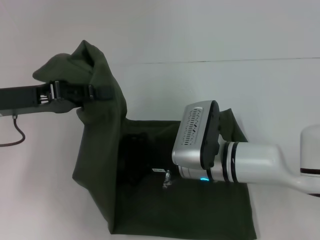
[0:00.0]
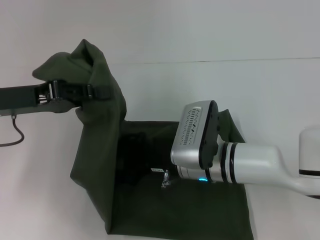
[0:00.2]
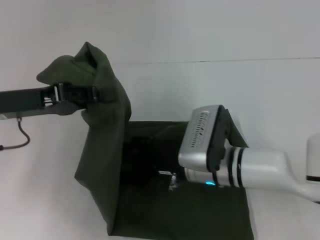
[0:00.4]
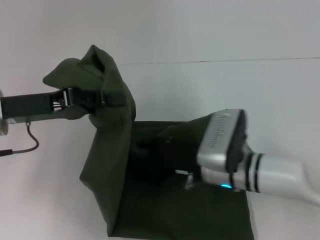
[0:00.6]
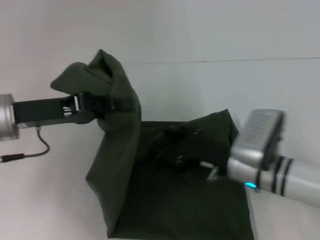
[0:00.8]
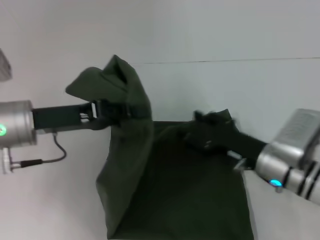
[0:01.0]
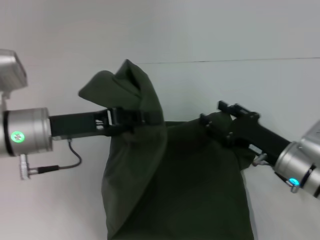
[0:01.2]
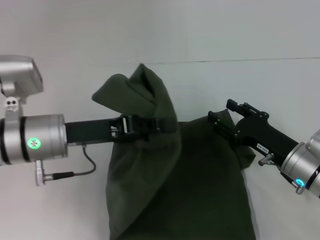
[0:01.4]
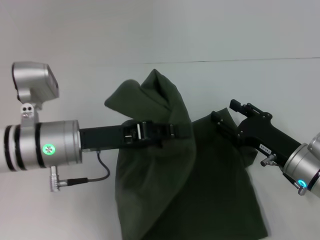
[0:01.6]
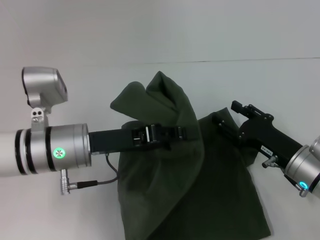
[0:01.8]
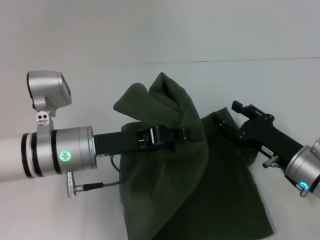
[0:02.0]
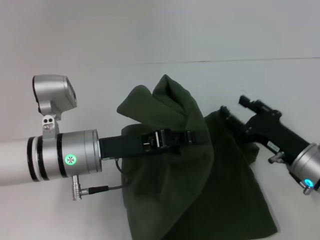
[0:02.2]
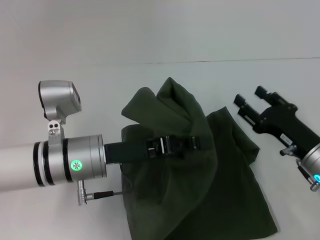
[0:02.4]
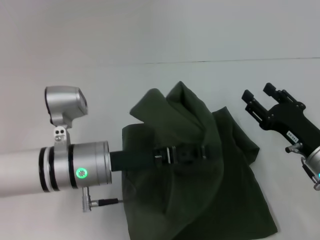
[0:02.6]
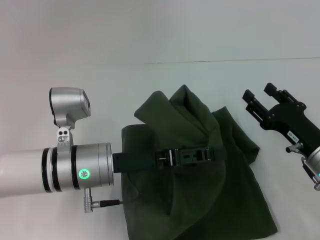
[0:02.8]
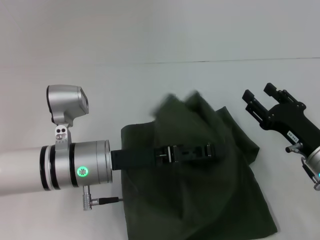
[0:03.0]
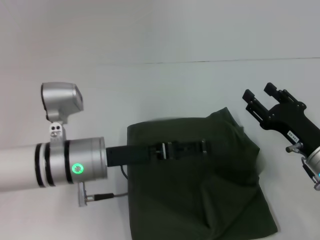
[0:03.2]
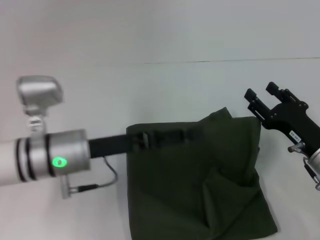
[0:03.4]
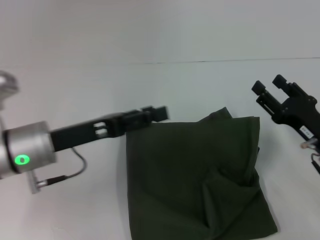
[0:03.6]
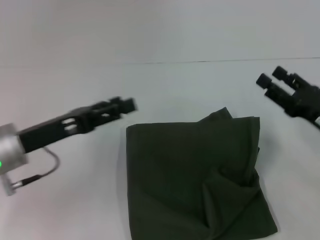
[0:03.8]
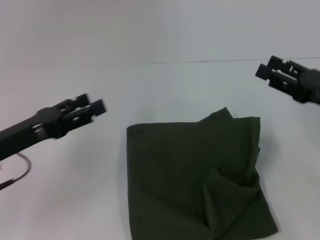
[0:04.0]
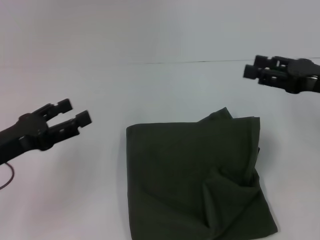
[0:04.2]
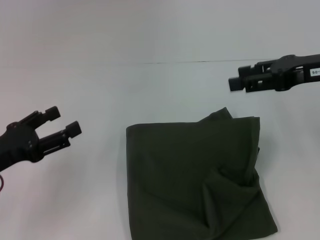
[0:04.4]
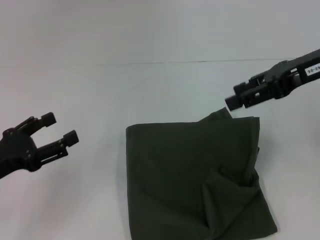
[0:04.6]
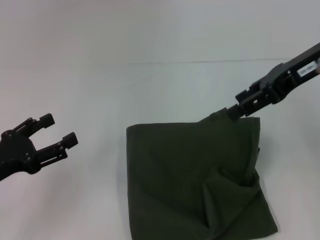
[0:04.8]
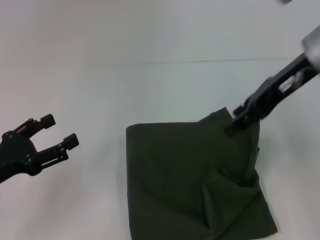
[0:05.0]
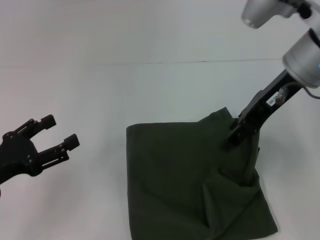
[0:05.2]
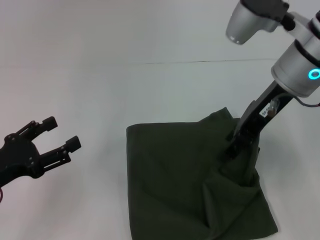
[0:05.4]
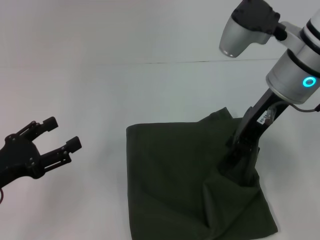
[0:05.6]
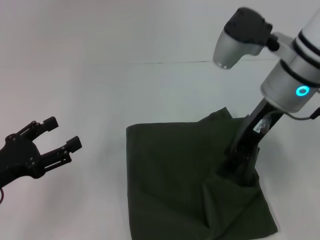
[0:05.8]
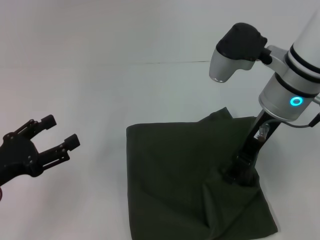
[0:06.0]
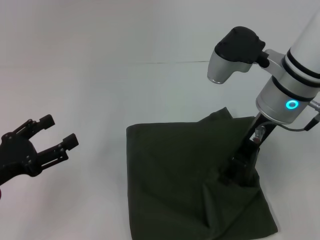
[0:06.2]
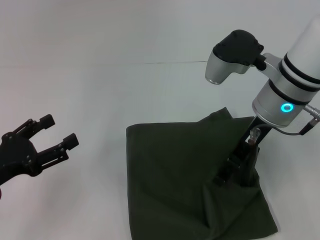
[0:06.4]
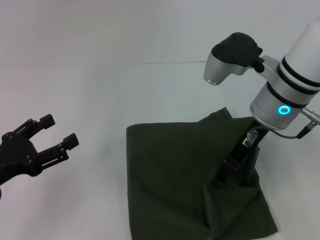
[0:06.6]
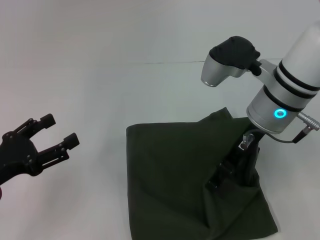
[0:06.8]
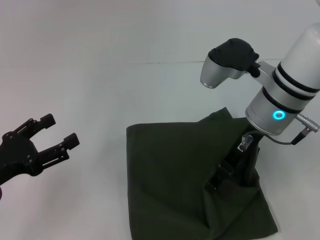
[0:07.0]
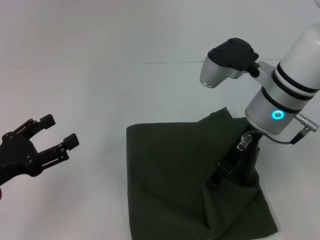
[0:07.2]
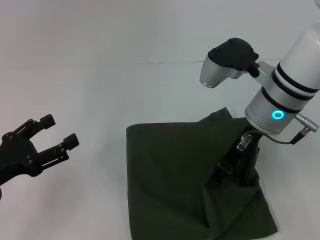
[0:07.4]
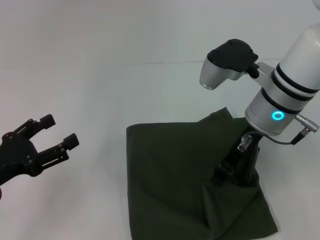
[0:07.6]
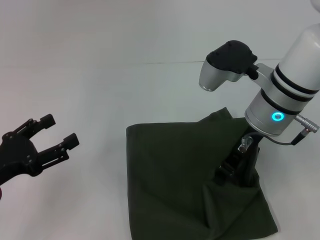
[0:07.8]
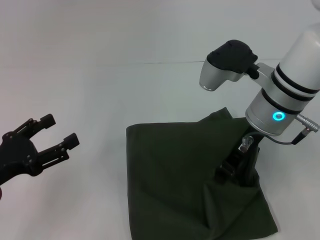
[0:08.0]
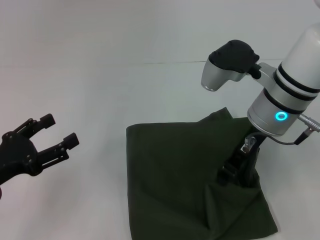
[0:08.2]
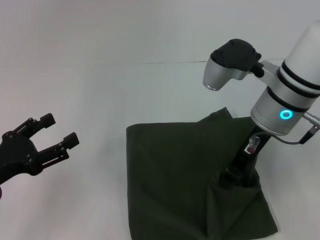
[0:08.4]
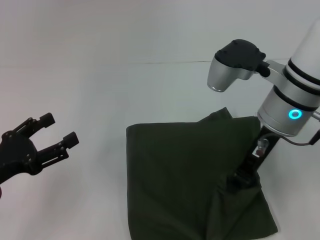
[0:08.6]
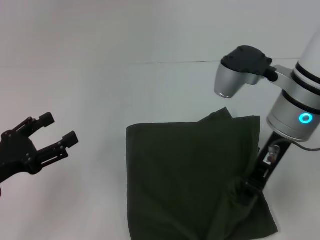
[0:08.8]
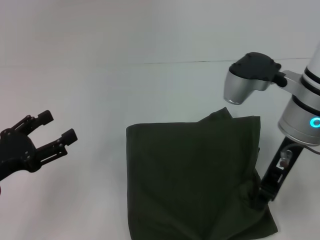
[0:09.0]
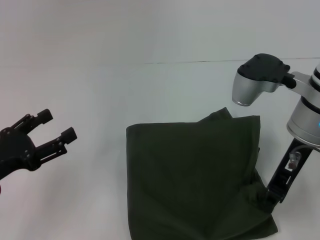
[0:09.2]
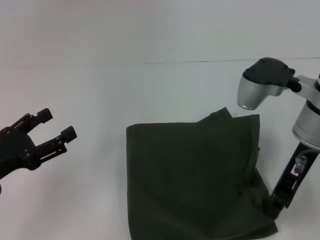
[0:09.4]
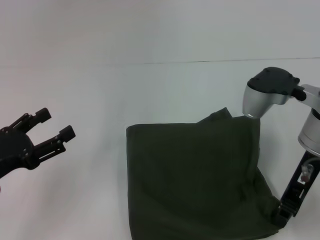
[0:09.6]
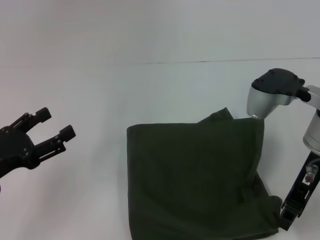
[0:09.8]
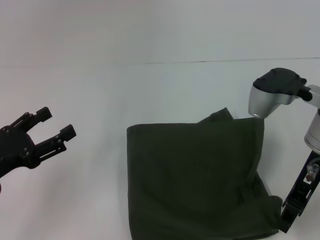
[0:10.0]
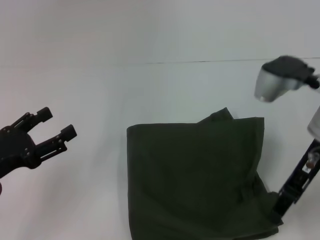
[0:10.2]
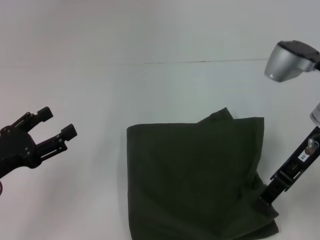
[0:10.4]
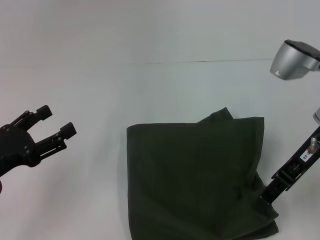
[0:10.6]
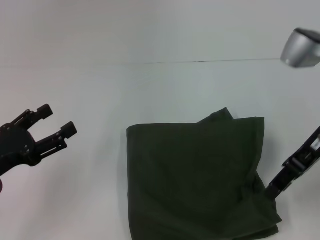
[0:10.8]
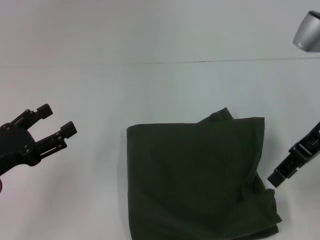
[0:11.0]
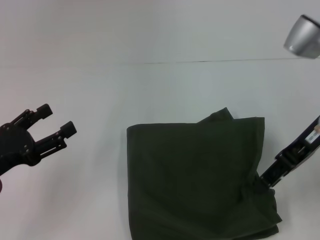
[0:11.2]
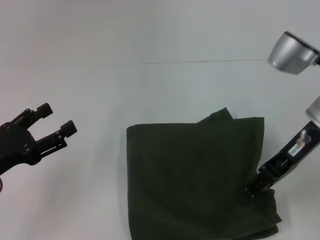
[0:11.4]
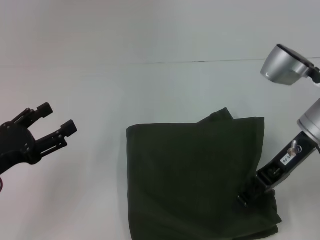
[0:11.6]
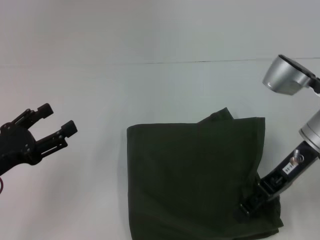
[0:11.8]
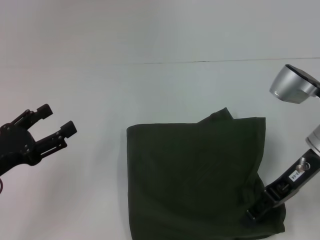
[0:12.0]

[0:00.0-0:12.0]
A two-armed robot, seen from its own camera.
Step, 0:00.0 to 0:03.2: Fold the clothes with your left hand.
0:00.0 to 0:01.6: The left gripper heads to the right and downward, covering some 10 cm. The right gripper heads to the right, covering roughly 15 cm.
0:03.0 to 0:04.4: The left gripper shifts roughly 15 cm to the left, and opens up, while the right gripper goes about 20 cm upward.
0:04.4 to 0:06.0: The right gripper shifts some 15 cm to the left.
0:06.0 to 0:07.6: The right gripper closes its fingers.
0:07.6 to 0:09.0: The grippers stay close to where they were, moving slightly.
0:09.0 to 0:10.4: The right gripper opens its fingers.
0:10.4 to 0:12.0: The right gripper shifts by roughly 5 cm.

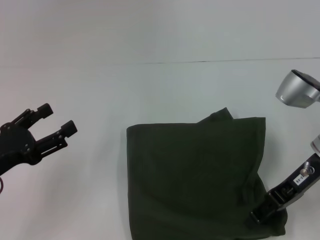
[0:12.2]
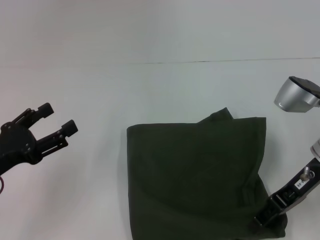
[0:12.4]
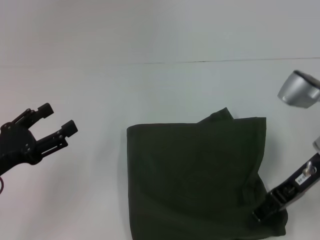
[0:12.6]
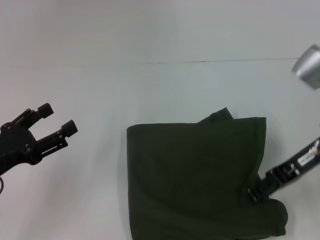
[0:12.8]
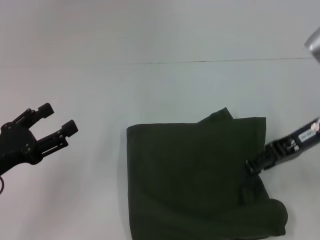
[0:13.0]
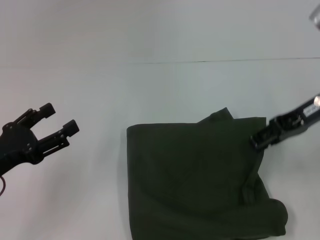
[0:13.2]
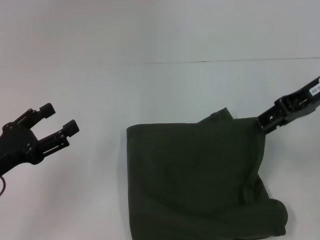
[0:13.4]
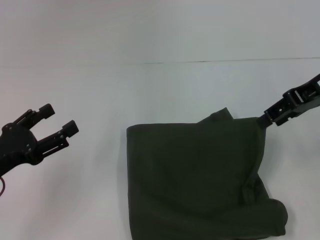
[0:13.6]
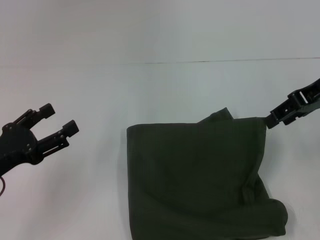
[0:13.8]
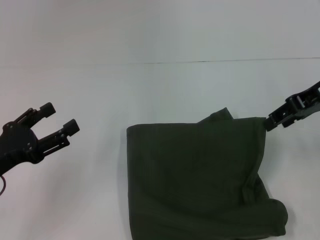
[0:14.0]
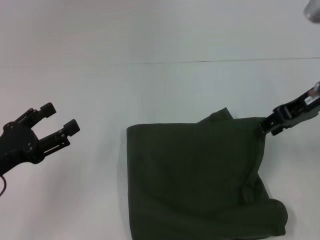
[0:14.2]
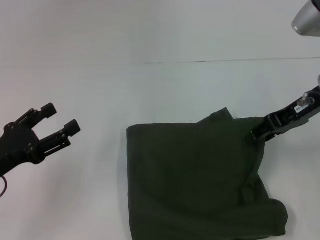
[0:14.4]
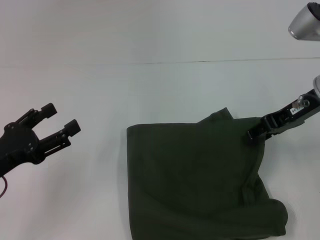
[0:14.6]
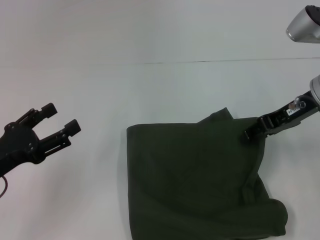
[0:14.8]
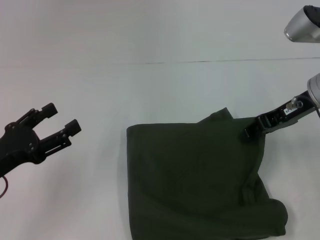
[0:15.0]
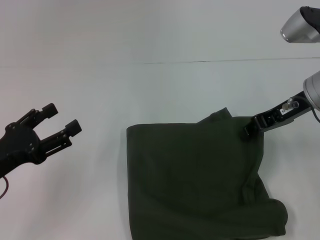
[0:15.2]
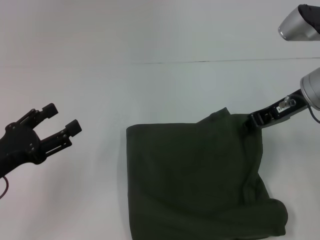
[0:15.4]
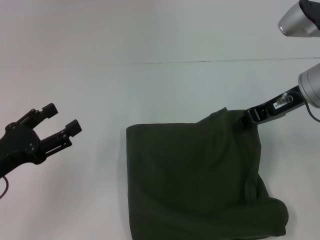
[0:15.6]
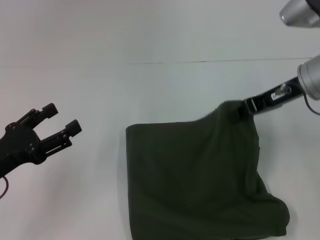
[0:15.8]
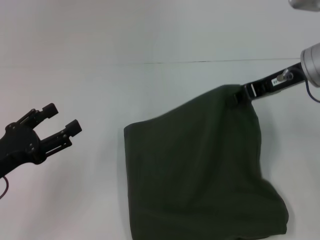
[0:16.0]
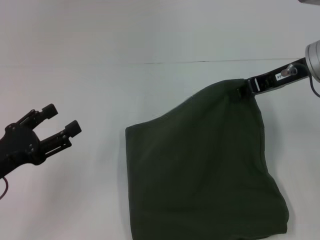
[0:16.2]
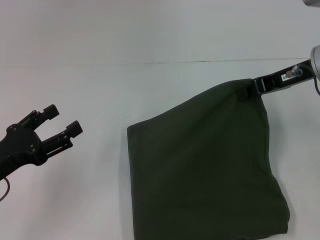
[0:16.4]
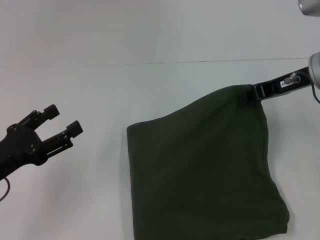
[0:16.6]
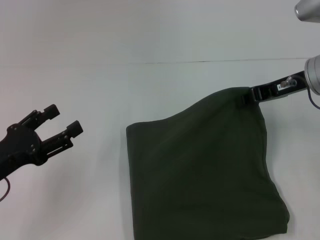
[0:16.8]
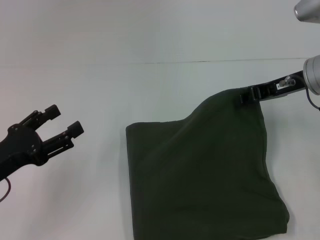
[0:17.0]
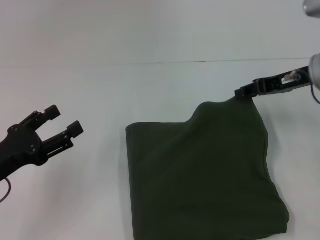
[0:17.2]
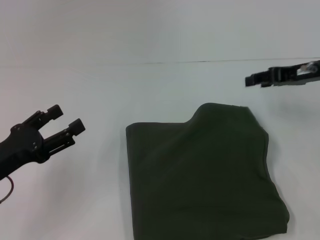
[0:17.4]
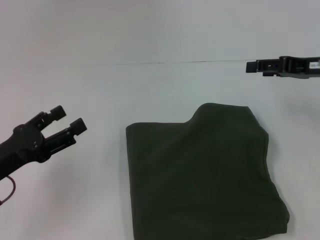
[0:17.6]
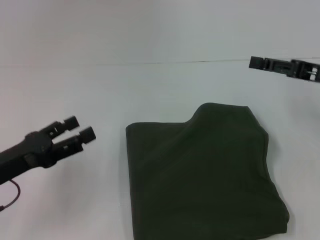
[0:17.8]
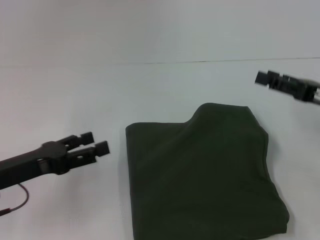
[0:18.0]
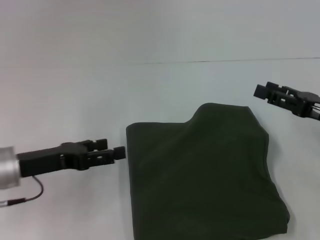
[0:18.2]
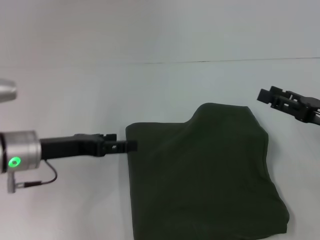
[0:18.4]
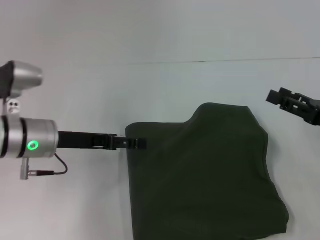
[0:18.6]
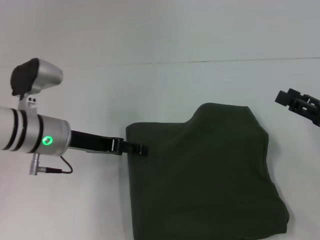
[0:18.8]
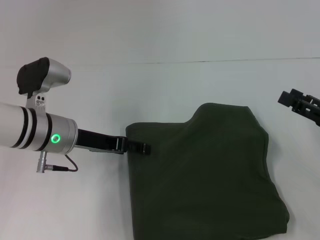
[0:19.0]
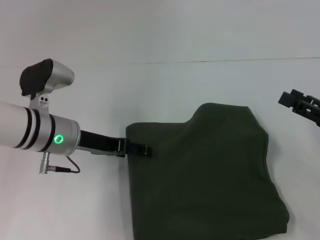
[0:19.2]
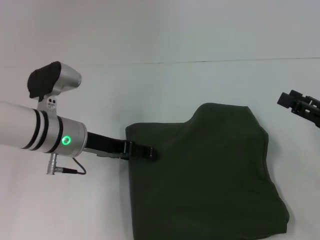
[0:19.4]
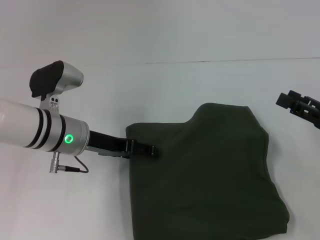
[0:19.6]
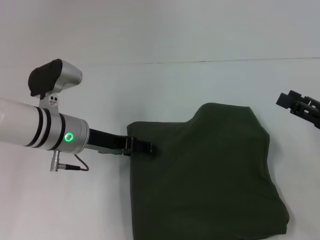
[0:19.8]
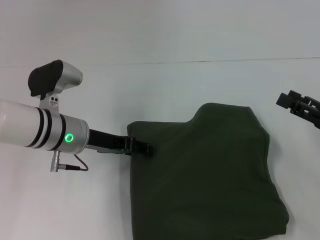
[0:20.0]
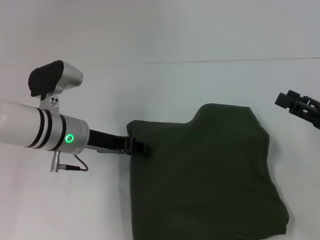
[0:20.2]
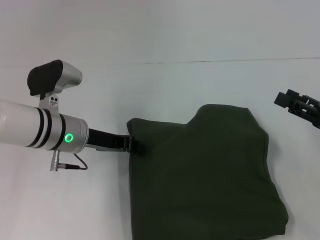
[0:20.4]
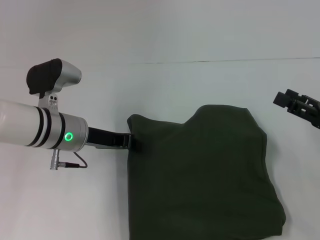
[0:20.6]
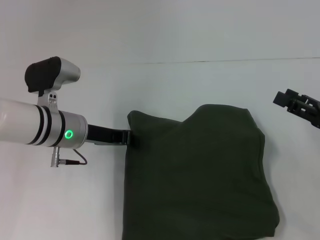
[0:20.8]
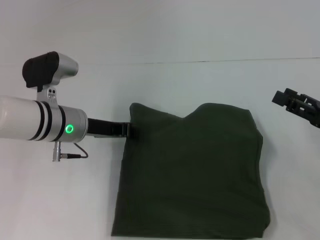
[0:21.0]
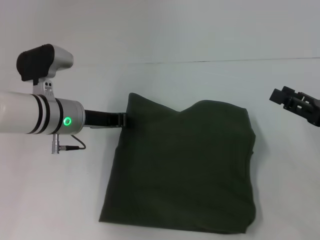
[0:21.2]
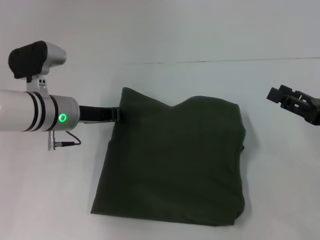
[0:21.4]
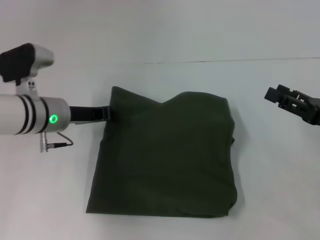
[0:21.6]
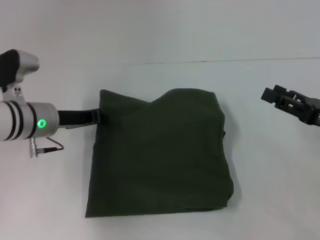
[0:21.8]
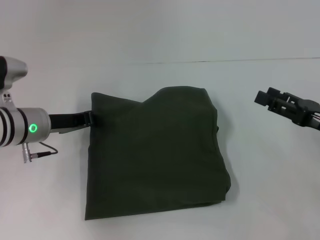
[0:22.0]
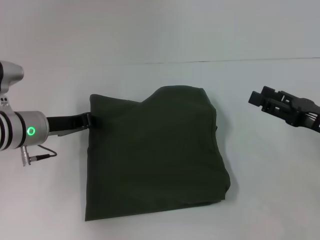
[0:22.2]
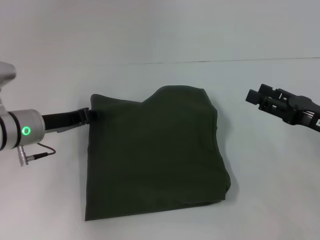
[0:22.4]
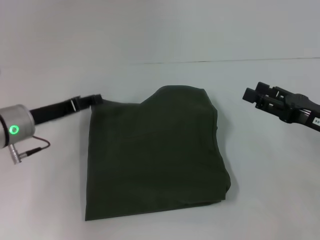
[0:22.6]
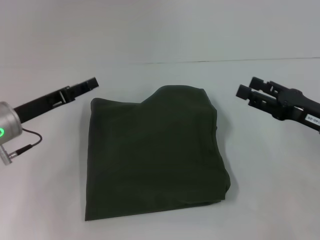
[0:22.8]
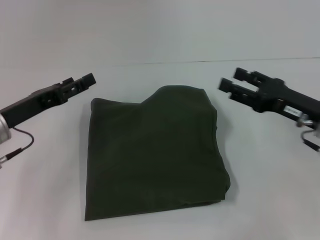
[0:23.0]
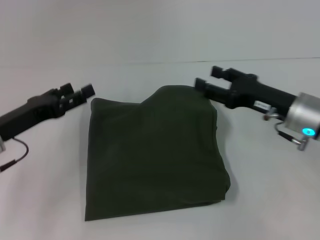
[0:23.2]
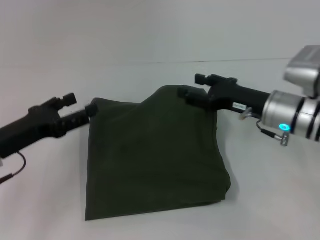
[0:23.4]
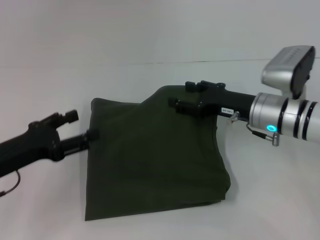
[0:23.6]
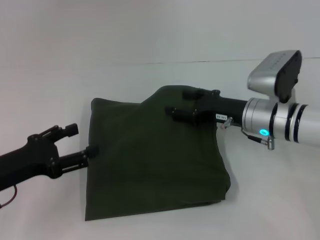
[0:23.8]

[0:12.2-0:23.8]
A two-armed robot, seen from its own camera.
0:12.2 to 0:13.6: The right gripper is displaced upward by about 10 cm.
0:13.6 to 0:15.0: The right gripper travels downward by some 5 cm.
0:15.0 to 0:16.6: The right gripper closes its fingers.
0:16.6 to 0:18.0: The right gripper is displaced backward, to the right and downward by approximately 10 cm, and opens.
0:18.0 to 0:19.4: The right gripper changes place by some 5 cm; the left gripper goes approximately 15 cm to the right and forward.
0:19.4 to 0:21.0: The left gripper closes up.
0:21.0 to 0:22.4: The left gripper shifts about 5 cm to the left.
0:22.4 to 0:23.8: The left gripper moves backward, about 10 cm, and opens its fingers. The right gripper moves to the left and forward, approximately 15 cm.
